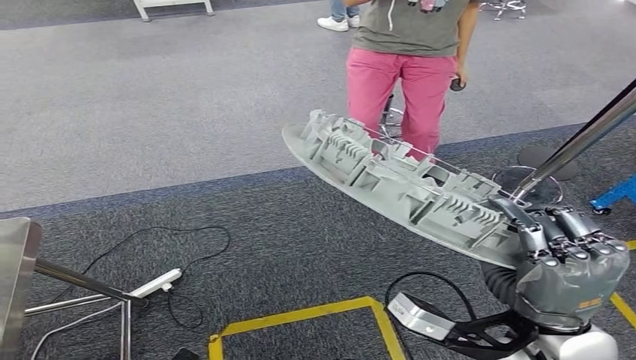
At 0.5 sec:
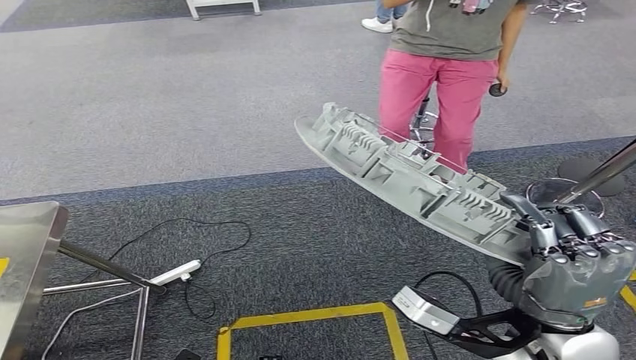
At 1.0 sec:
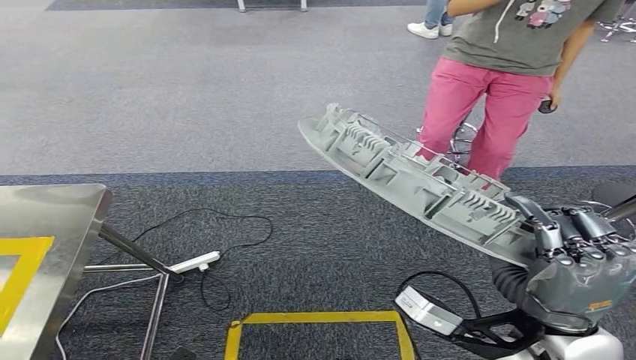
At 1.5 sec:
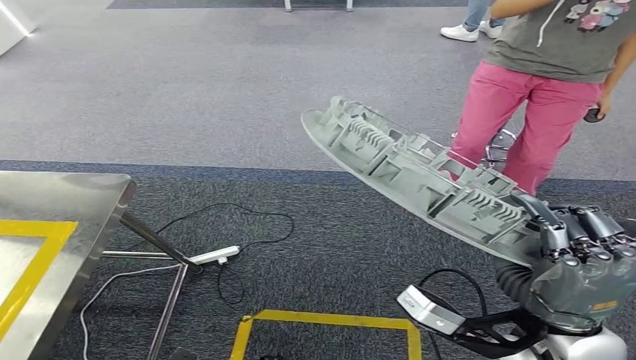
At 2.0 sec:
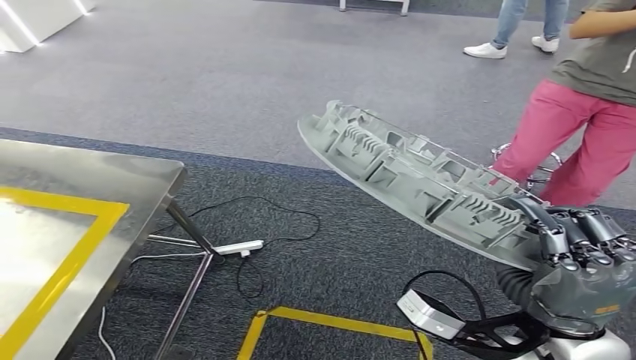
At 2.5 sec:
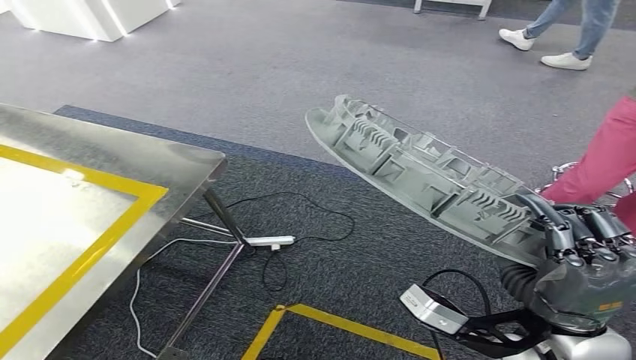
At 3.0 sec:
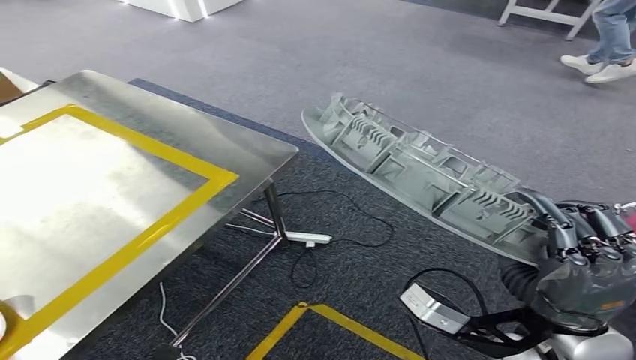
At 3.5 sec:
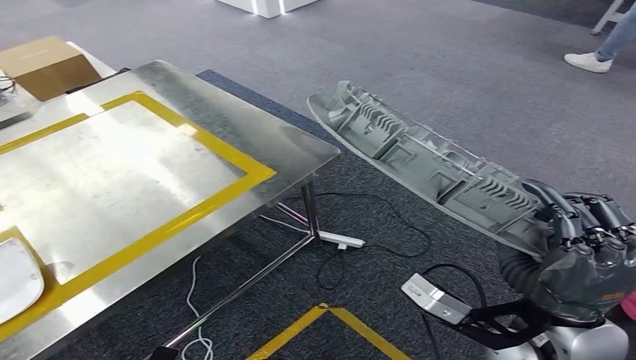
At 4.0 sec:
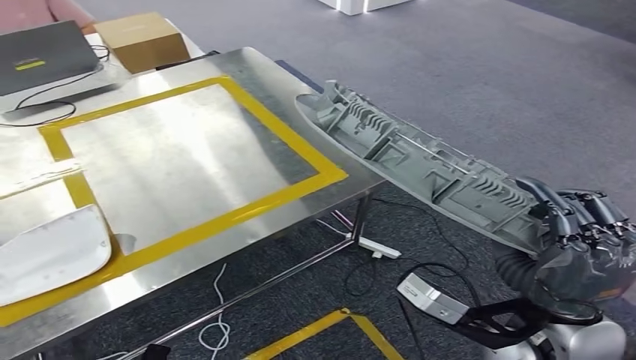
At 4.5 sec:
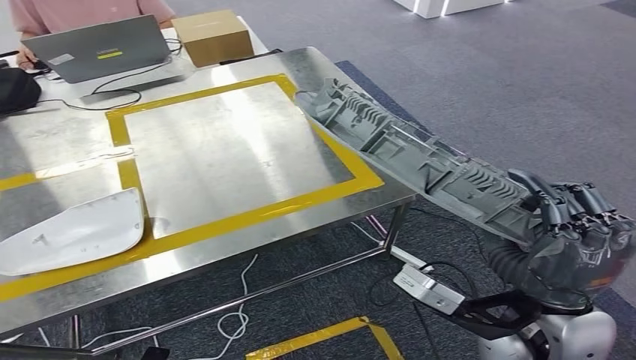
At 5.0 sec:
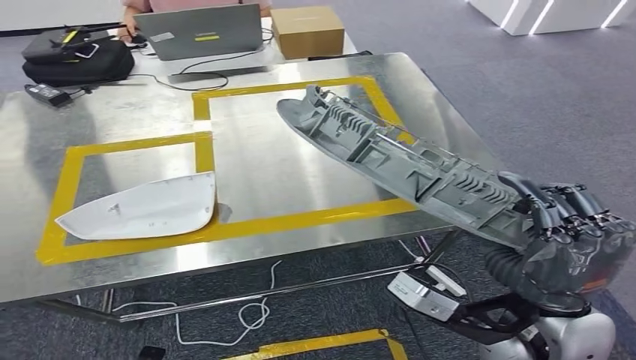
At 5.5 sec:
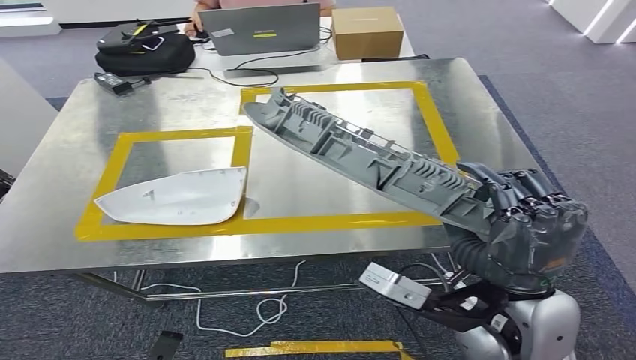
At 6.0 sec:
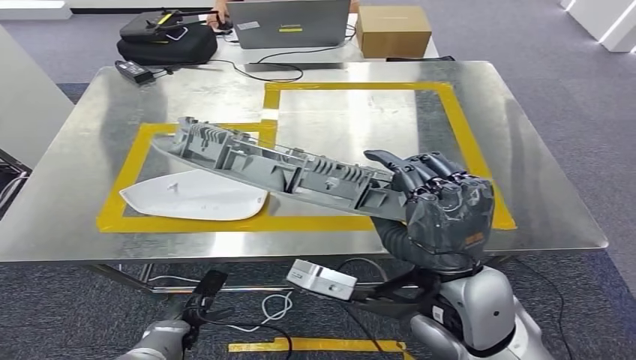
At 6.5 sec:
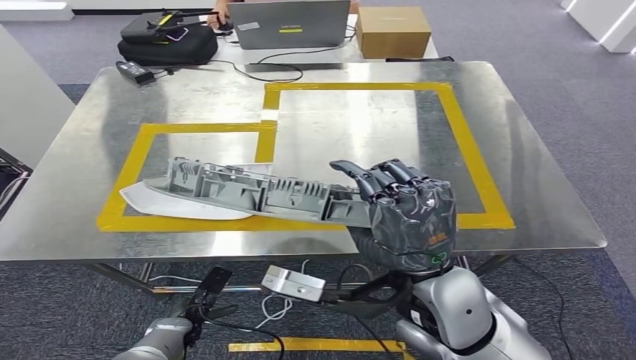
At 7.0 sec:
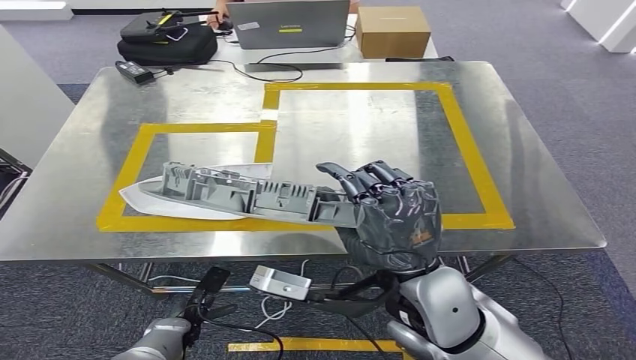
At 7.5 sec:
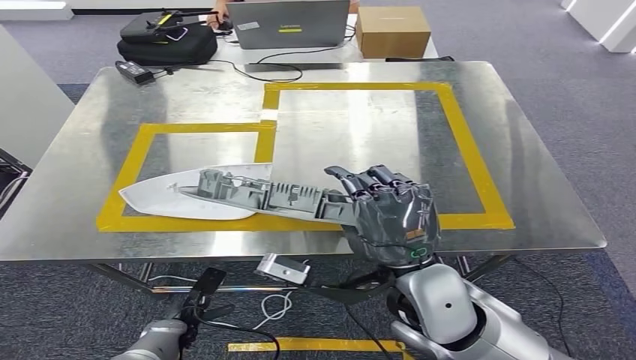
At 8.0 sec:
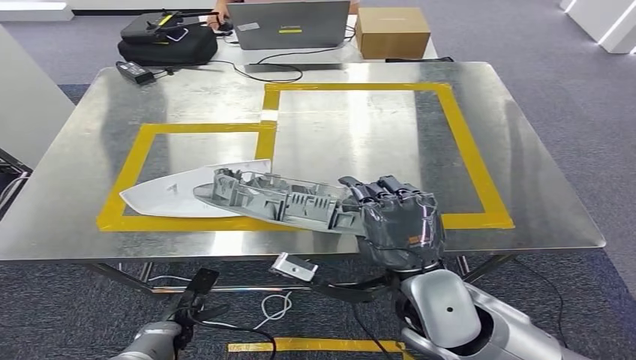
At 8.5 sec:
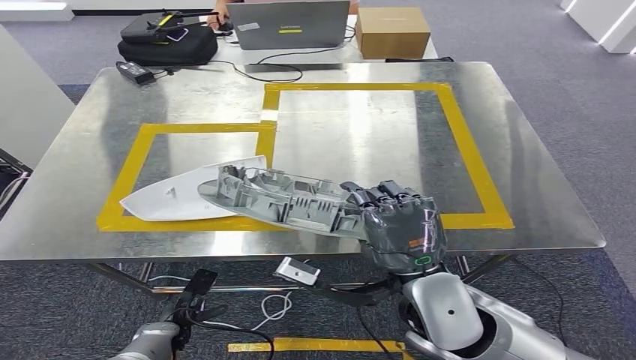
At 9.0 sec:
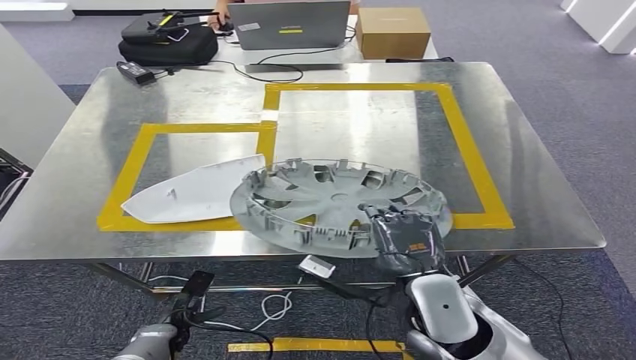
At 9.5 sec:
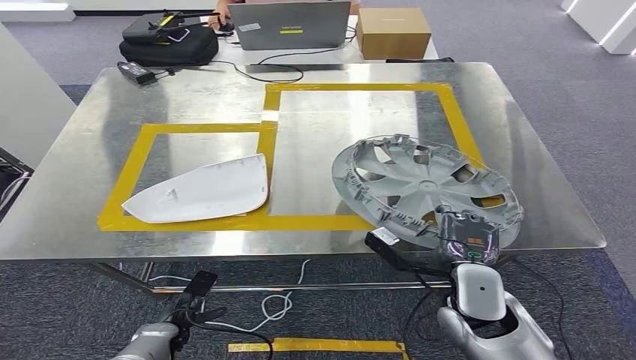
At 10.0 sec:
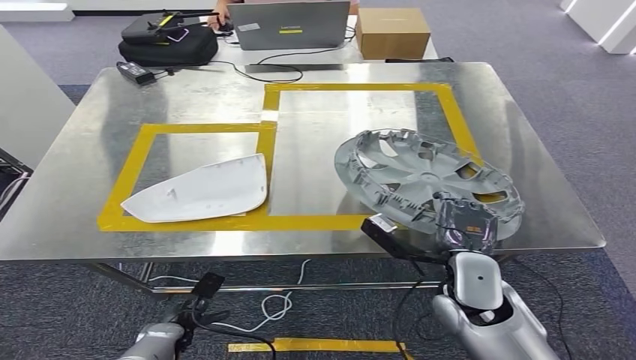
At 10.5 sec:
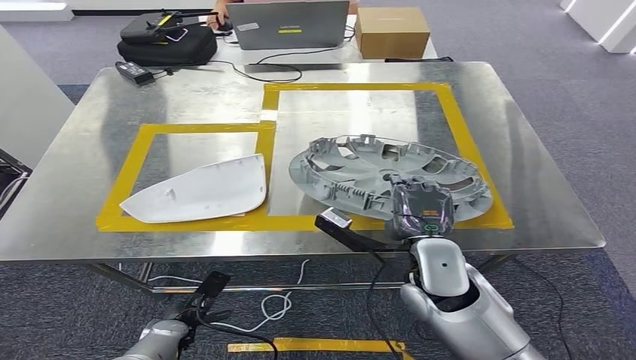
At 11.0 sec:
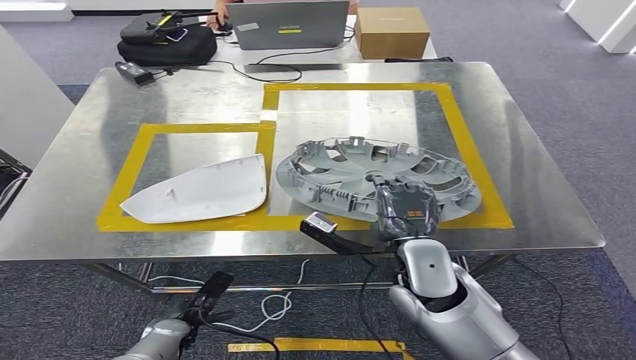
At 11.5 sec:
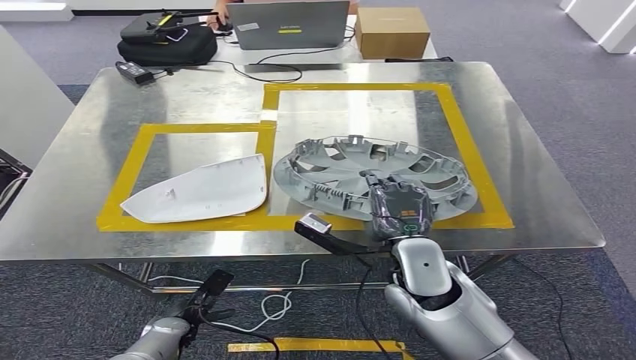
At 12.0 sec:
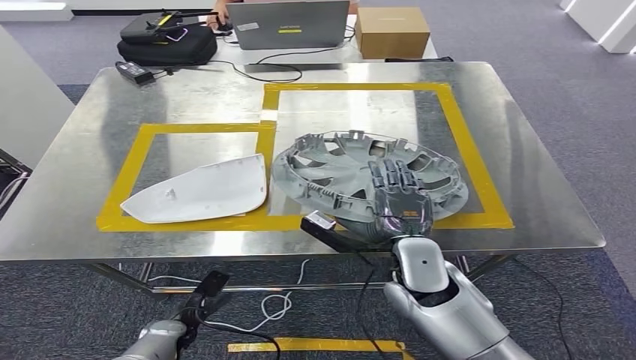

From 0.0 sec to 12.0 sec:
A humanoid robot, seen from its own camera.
From 6.0 sec to 8.0 sec: The hands make only small movements.
From 8.0 sec to 10.0 sec: The right hand heads downward and to the right, covering approximately 10 cm.
From 10.0 sec to 12.0 sec: The right hand shifts approximately 5 cm to the left.

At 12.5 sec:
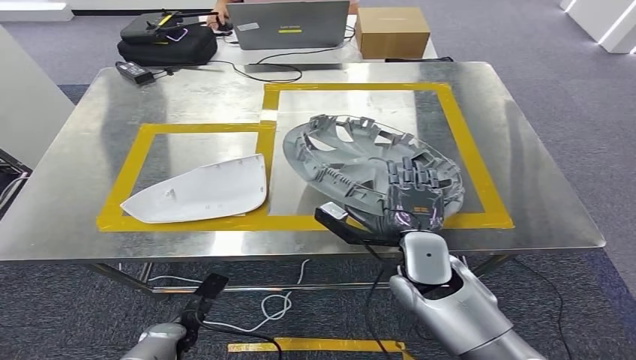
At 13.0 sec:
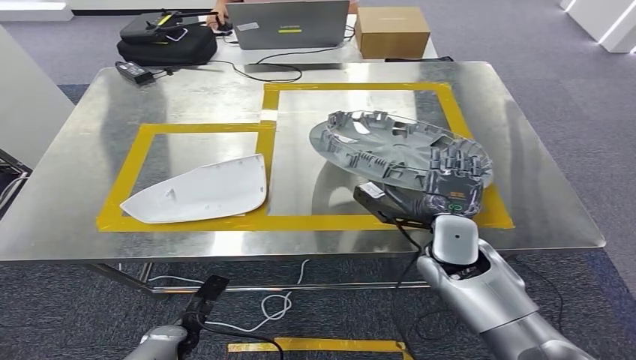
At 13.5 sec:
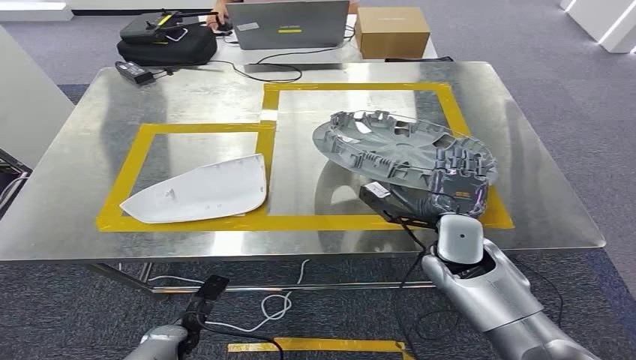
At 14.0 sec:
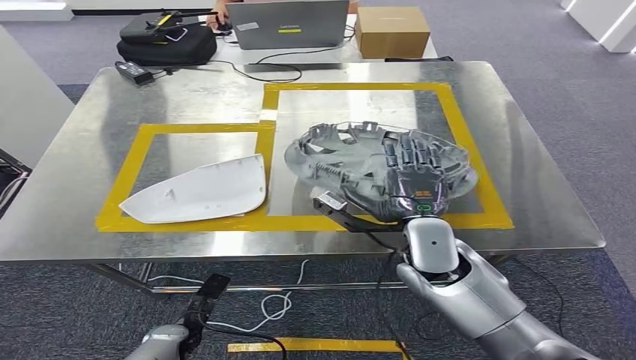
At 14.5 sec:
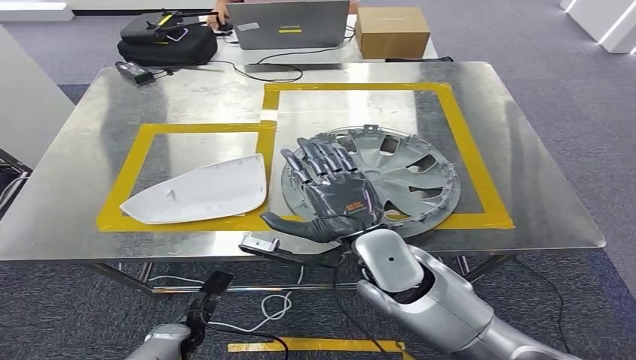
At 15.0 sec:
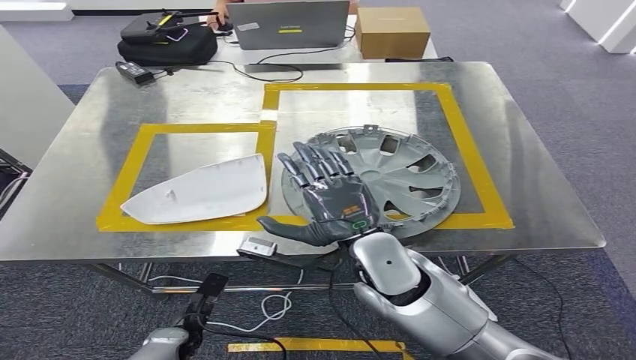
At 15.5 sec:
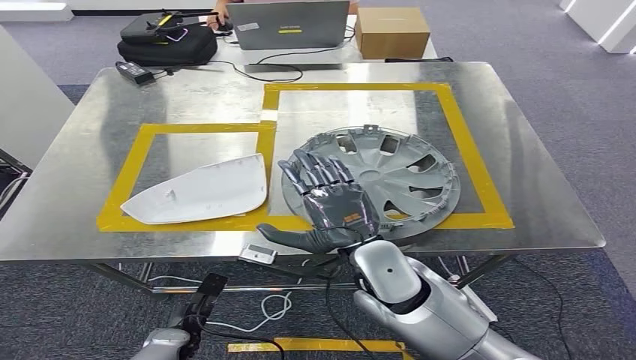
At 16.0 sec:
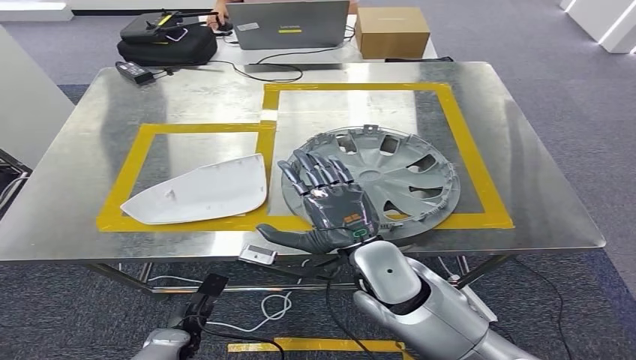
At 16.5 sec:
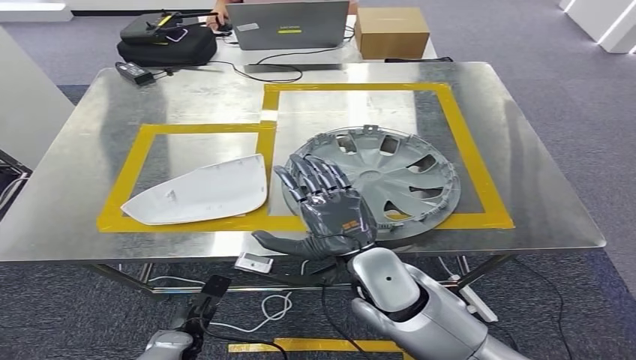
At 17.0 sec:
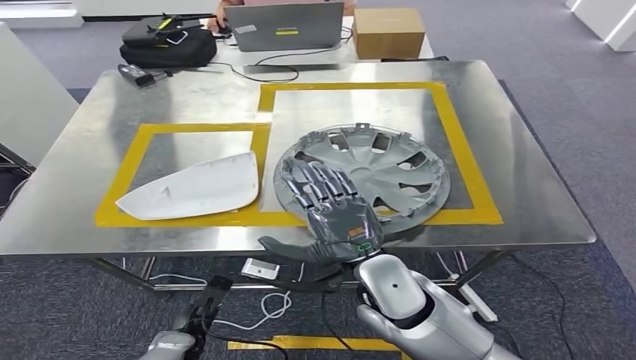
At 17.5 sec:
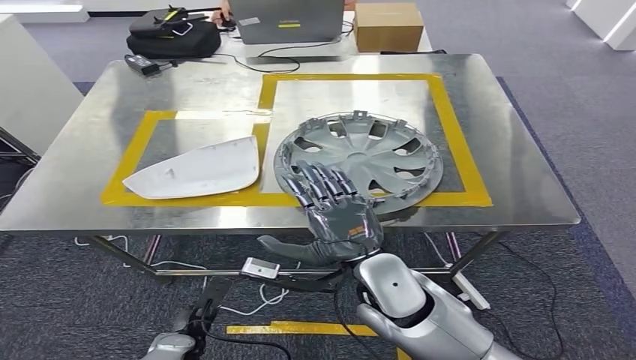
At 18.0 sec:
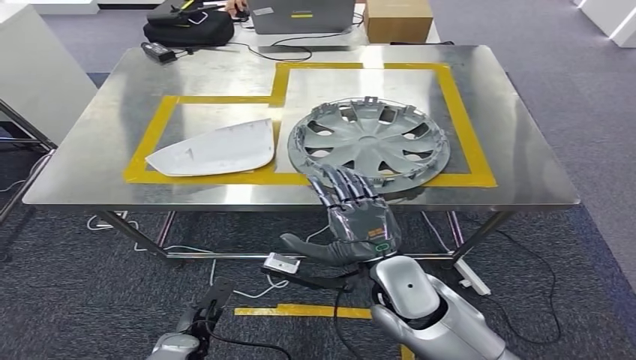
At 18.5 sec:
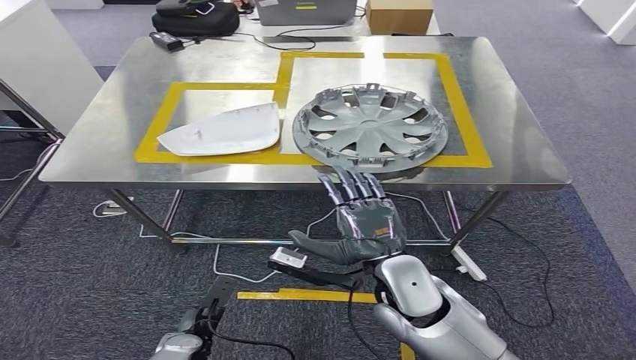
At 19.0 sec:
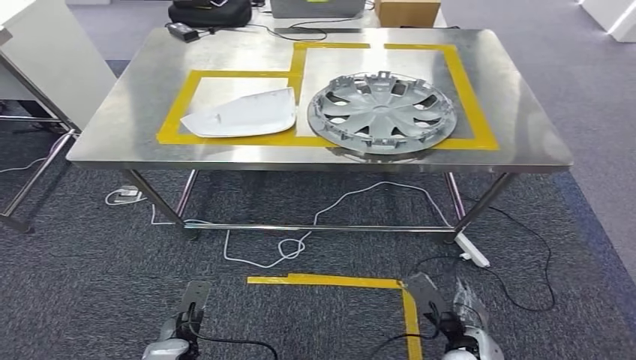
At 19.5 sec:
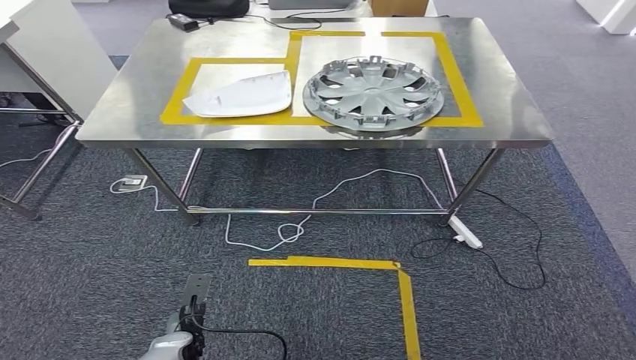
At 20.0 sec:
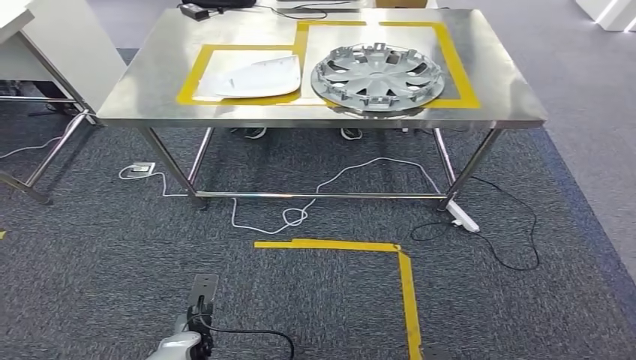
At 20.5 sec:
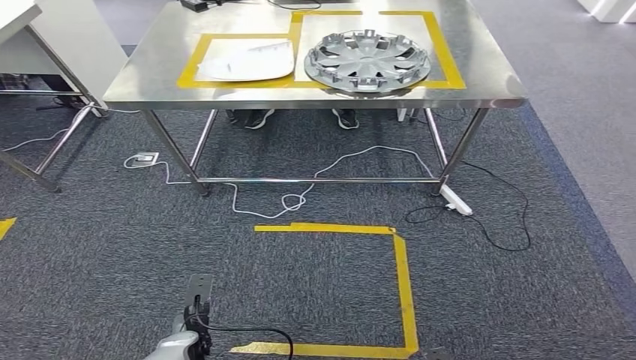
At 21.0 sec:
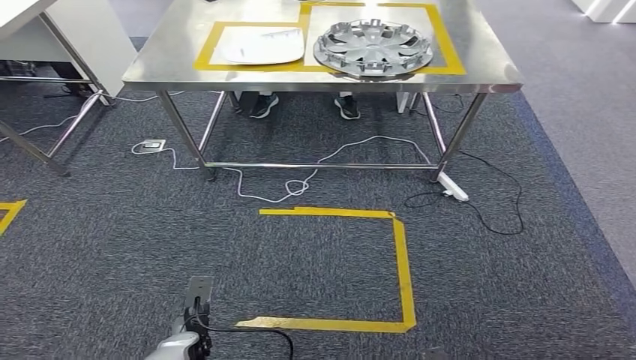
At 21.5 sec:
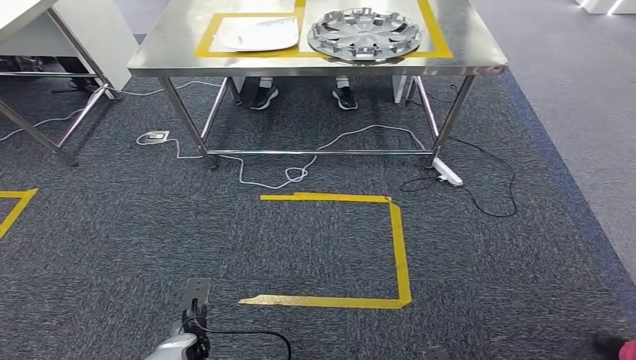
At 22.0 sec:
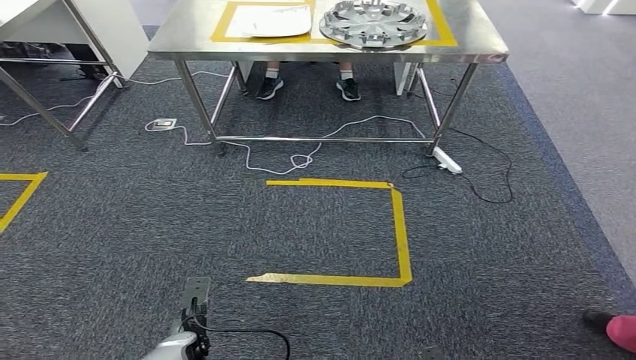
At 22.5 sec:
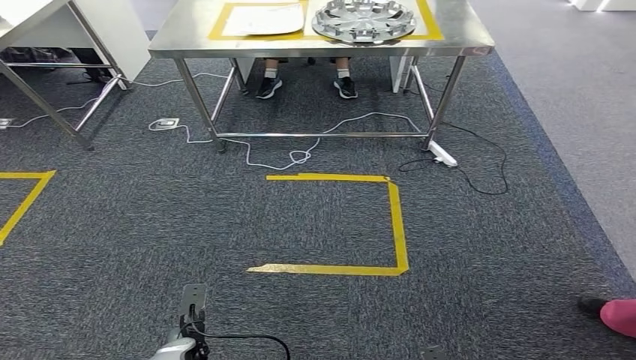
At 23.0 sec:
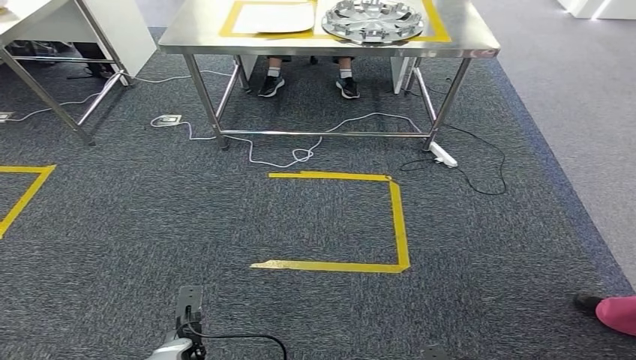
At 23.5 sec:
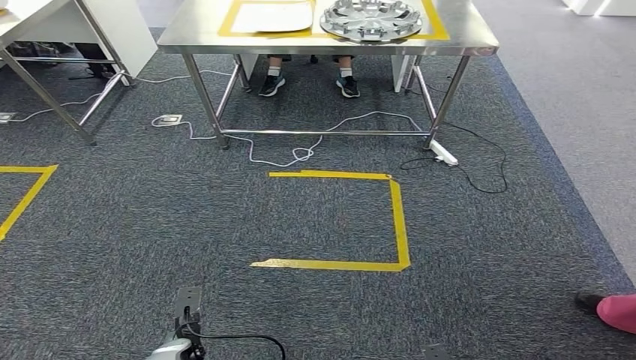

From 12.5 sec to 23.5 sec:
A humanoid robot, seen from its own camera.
Step, from 12.5 sec to 19.5 sec: Insert the small component into the corresponding slot on the workbench.
From 12.5 sec to 14.5 sec: The right hand shifts approximately 10 cm to the left and upward.
From 14.5 sec to 16.0 sec: The hands stay close to where they were, moving slightly.
